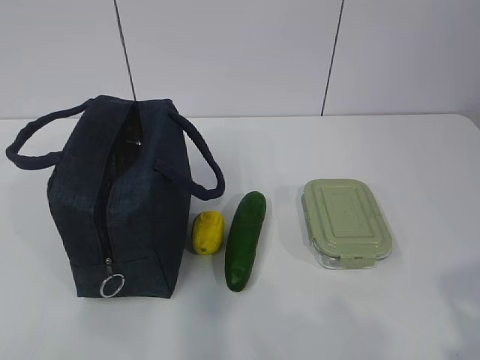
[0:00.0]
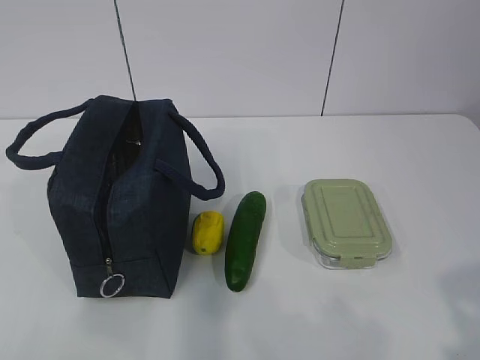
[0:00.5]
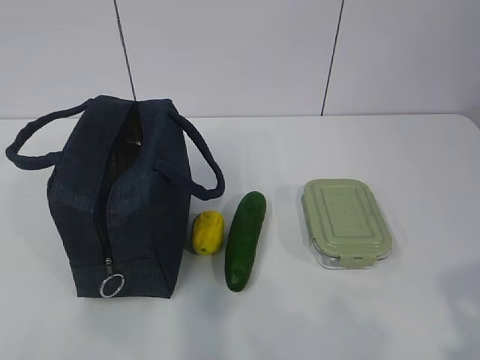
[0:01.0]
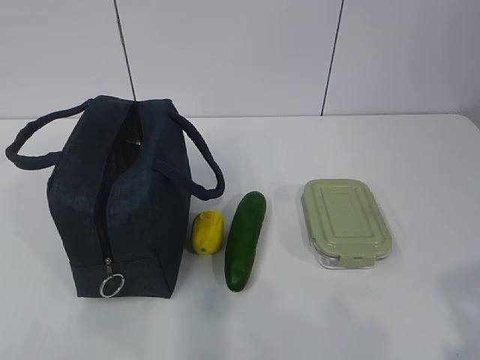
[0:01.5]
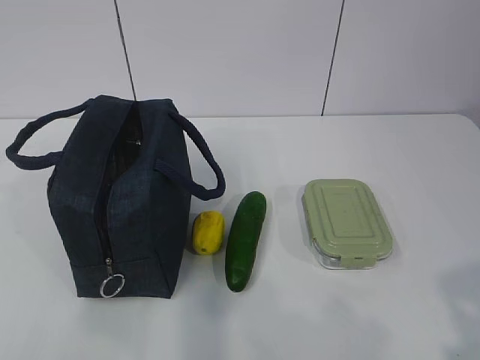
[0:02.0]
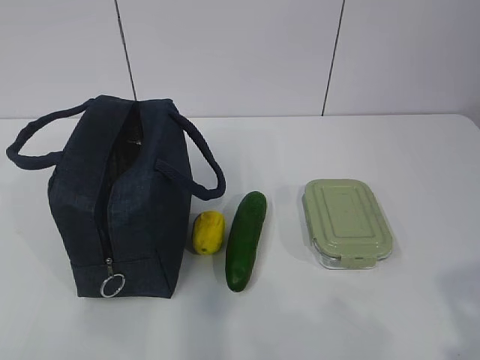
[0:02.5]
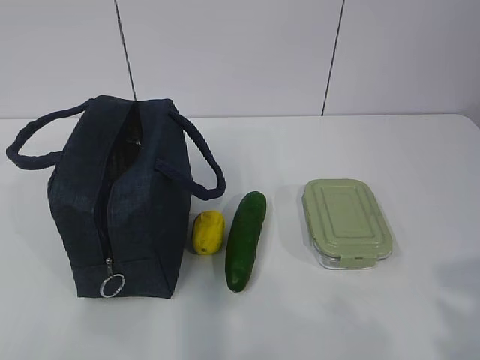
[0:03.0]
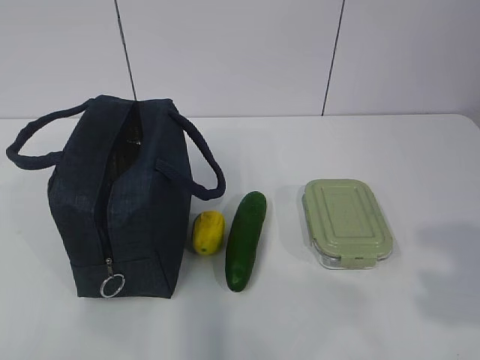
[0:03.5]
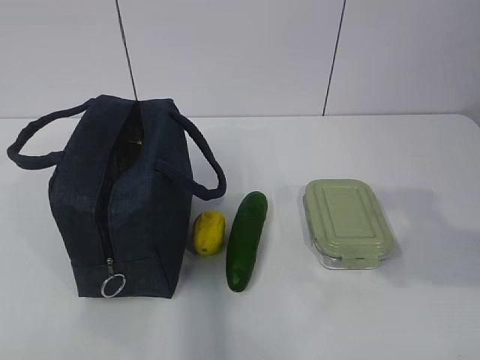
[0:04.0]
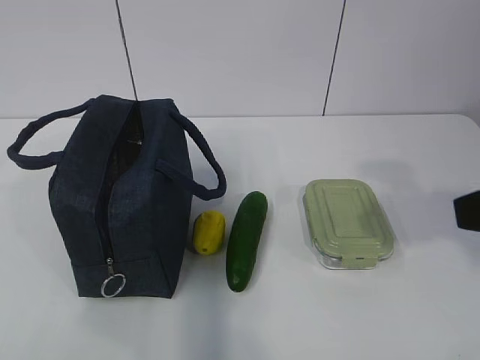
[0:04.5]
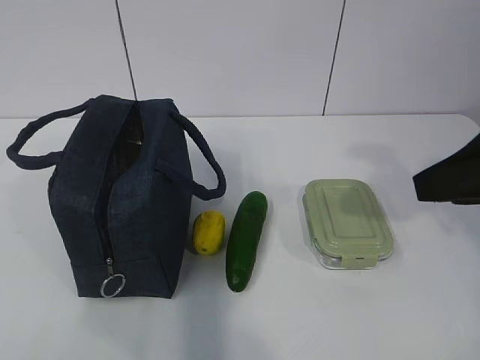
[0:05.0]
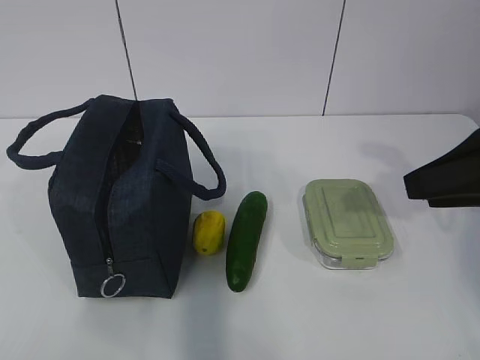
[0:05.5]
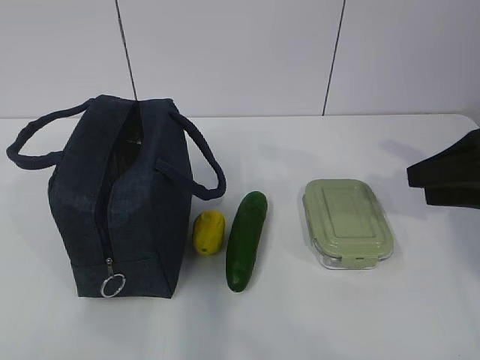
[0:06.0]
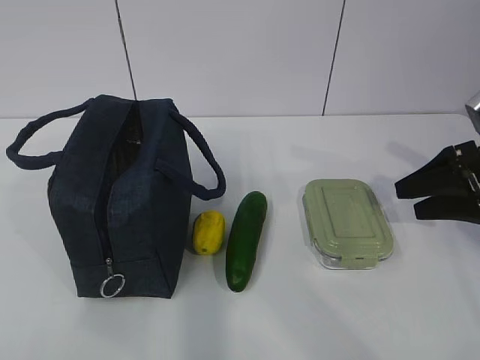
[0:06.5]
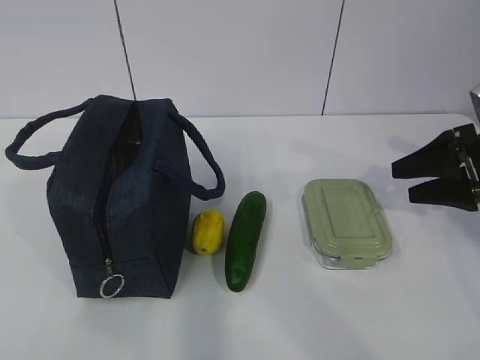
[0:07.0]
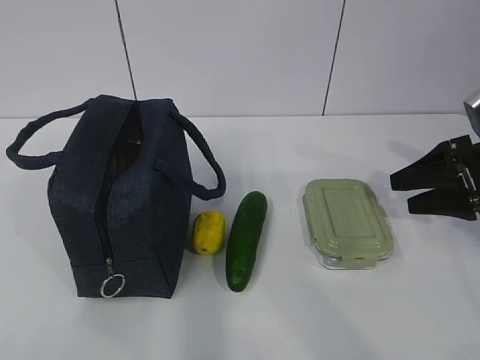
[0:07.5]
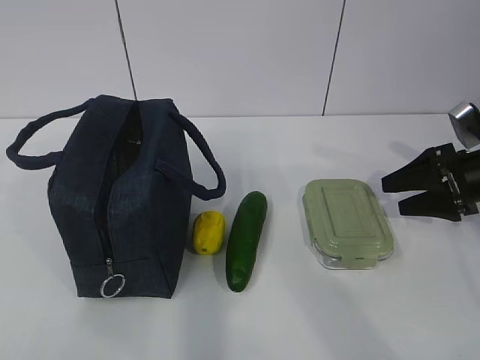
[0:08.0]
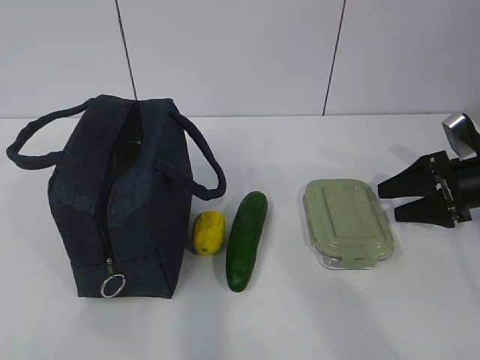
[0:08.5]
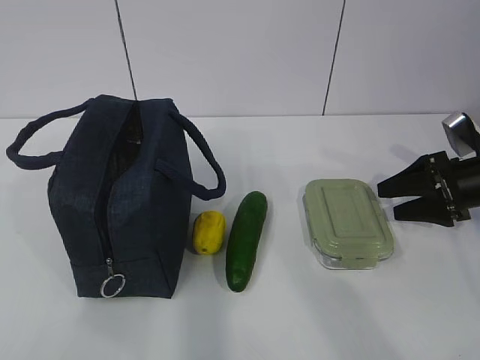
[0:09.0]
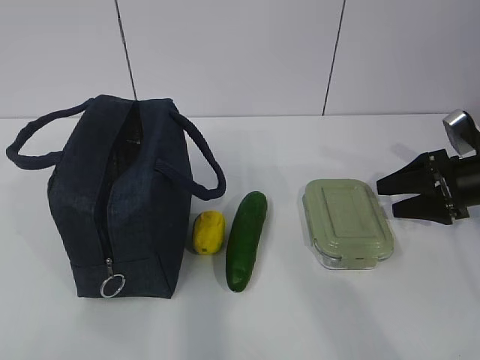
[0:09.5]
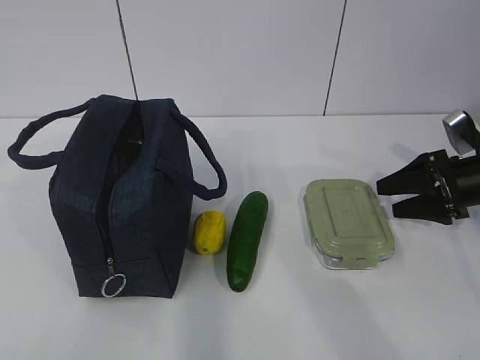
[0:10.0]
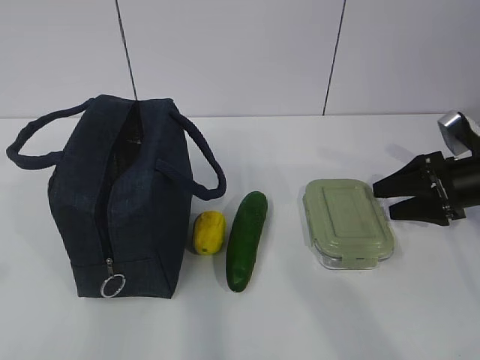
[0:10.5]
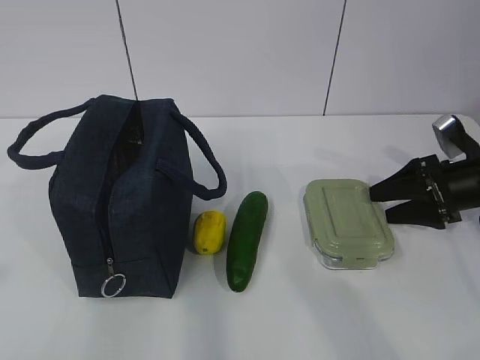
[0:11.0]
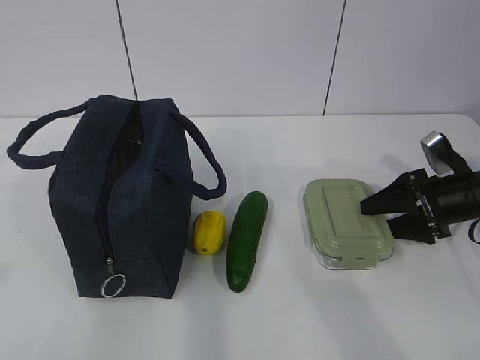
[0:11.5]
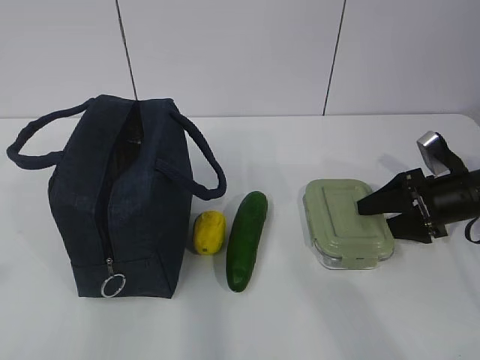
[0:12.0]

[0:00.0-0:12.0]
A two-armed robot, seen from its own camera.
0:02.0 to 0:04.0: The right gripper goes approximately 10 cm forward.
0:04.0 to 0:06.0: The right gripper shifts roughly 20 cm forward and downward.
0:06.0 to 0:08.0: The right gripper moves downward and forward, some 10 cm.
0:08.0 to 0:12.0: The grippers move only a little.

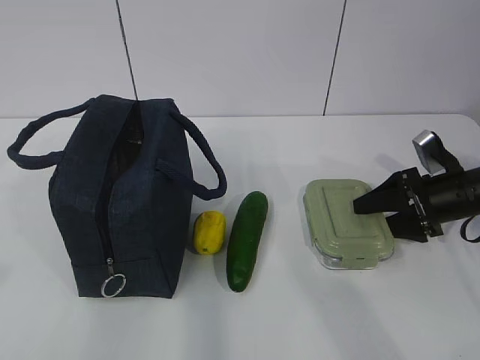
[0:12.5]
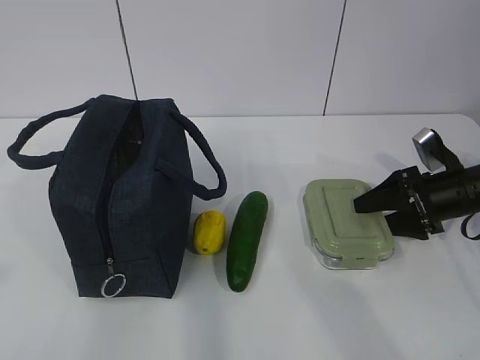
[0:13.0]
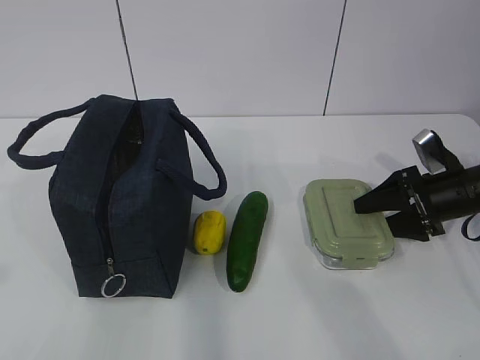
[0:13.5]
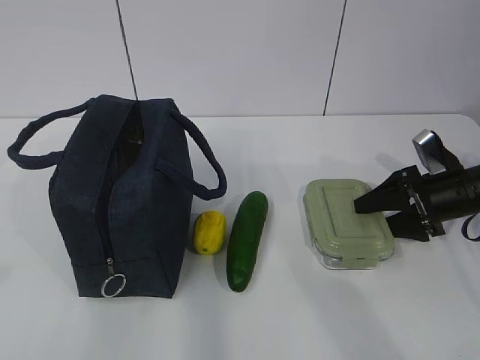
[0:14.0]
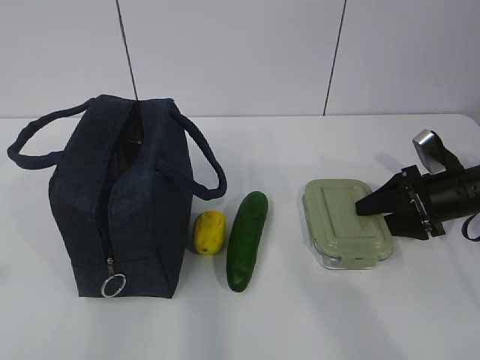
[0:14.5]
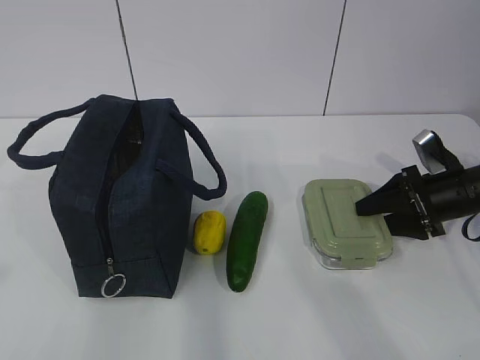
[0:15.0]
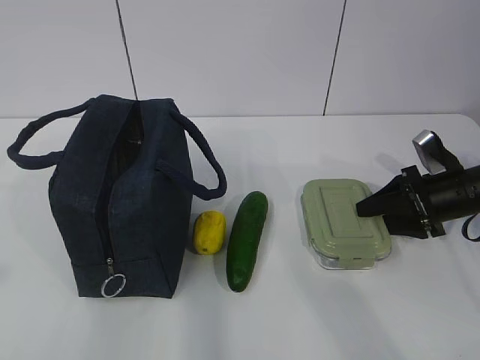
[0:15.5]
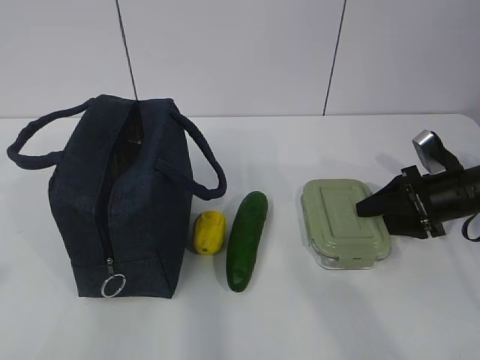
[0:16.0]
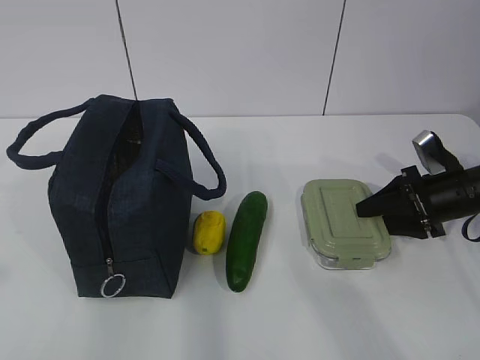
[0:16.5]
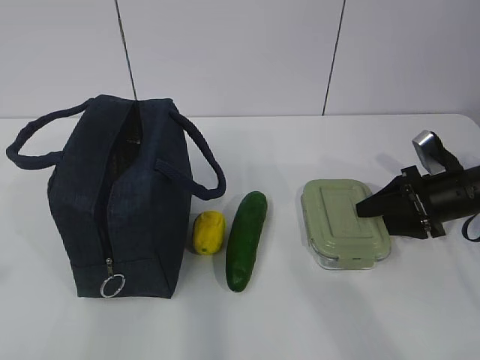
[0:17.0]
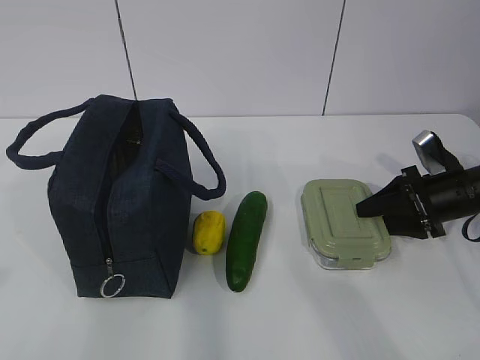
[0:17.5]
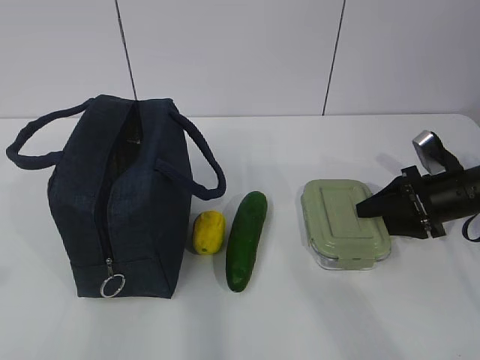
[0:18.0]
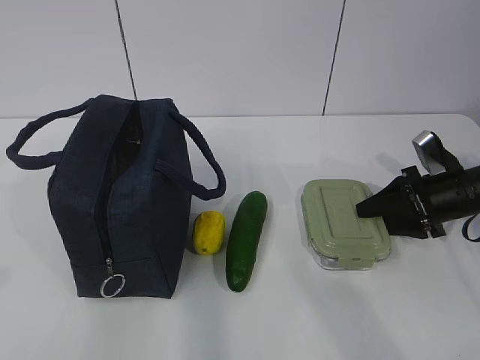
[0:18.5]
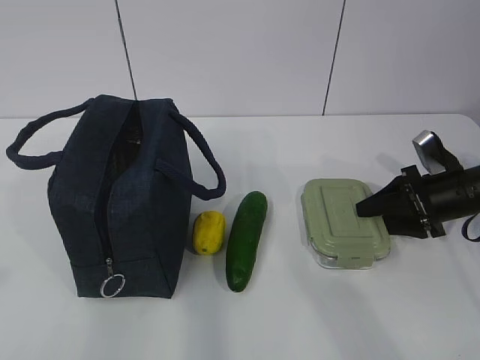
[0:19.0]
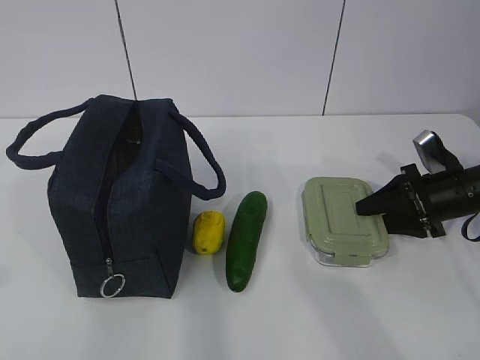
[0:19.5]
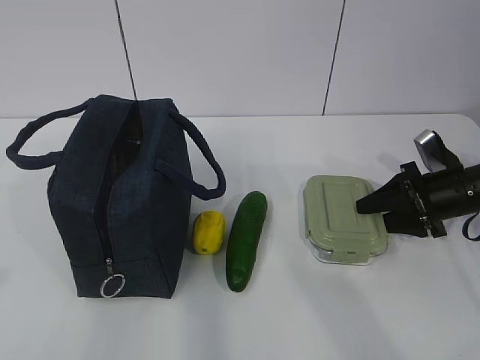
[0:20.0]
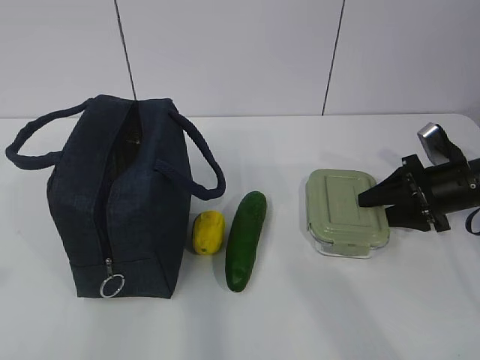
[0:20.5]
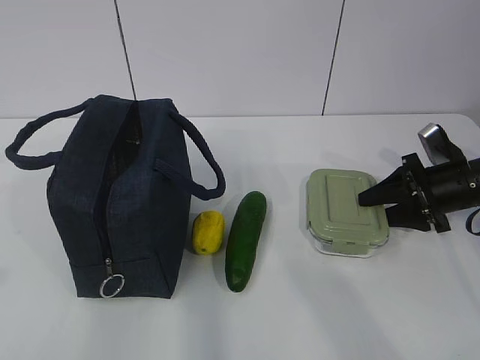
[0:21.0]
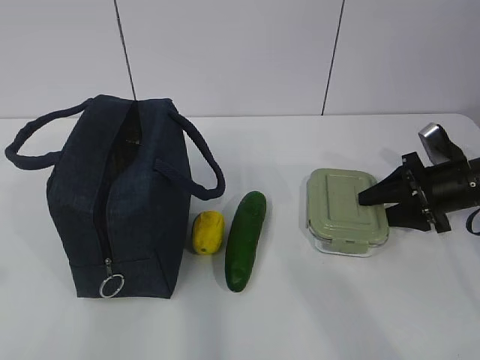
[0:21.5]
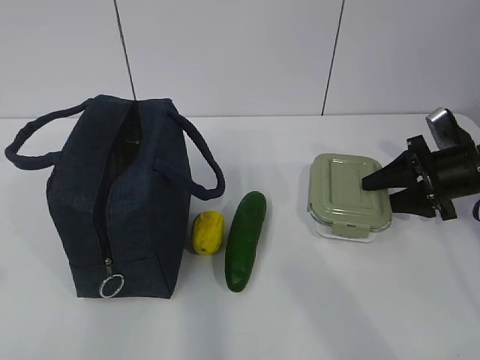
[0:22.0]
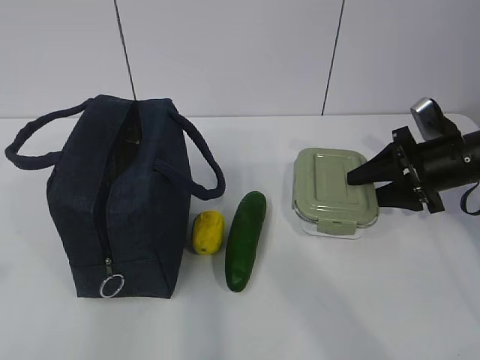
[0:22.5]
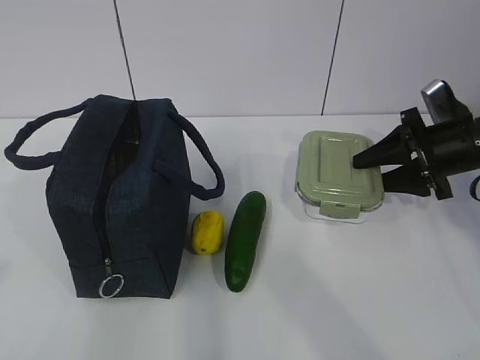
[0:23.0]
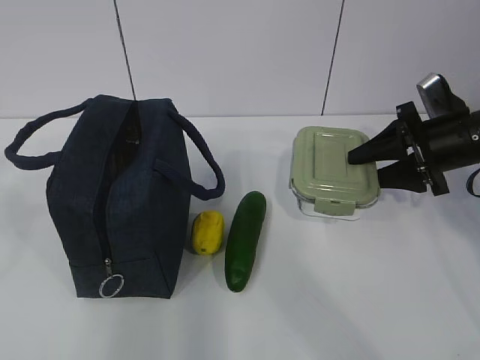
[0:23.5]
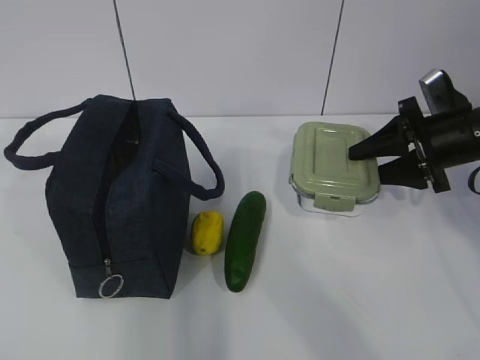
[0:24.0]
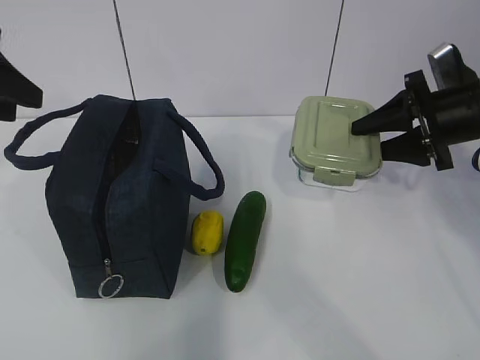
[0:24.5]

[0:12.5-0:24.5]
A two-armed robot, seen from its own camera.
Step, 0:17.0 to 0:23.5: Grab the lunch bag with your left hand.
0:12.5 to 0:18.5: Both grippers stay about where they are.
0:18.5 to 0:20.5: The two grippers keep their place.
0:20.5 to 0:22.5: The grippers move only a little.
0:22.5 to 0:24.5: The left gripper is displaced forward by some 25 cm. The right gripper heads upward, covering approximately 5 cm.

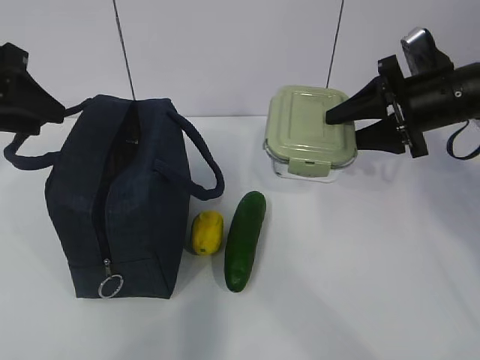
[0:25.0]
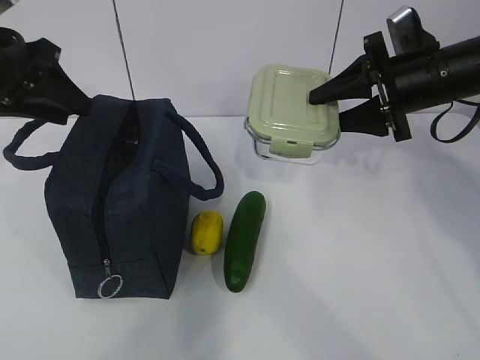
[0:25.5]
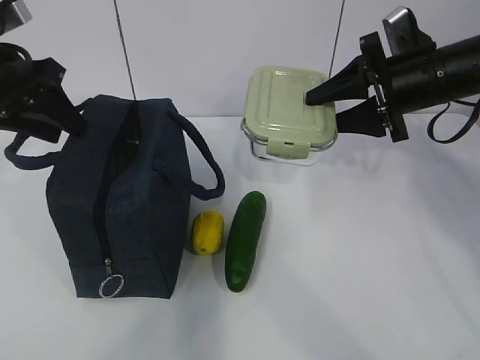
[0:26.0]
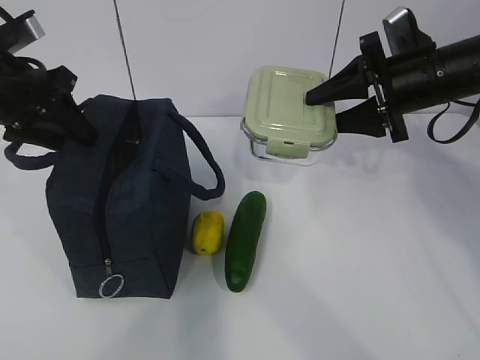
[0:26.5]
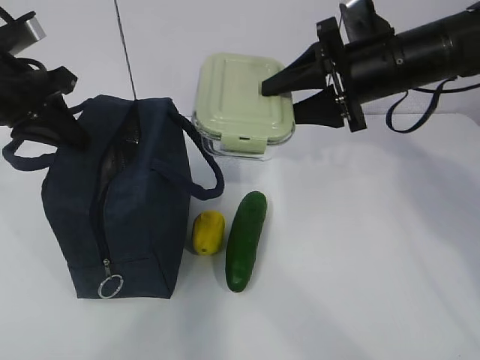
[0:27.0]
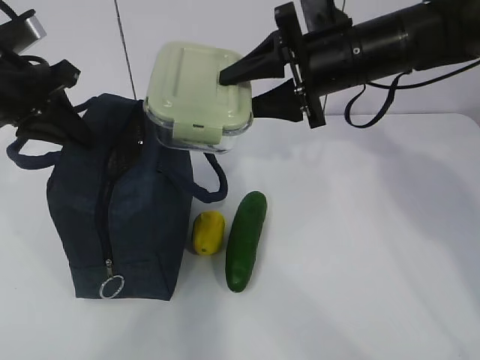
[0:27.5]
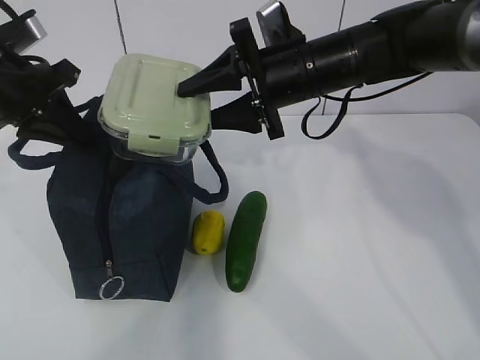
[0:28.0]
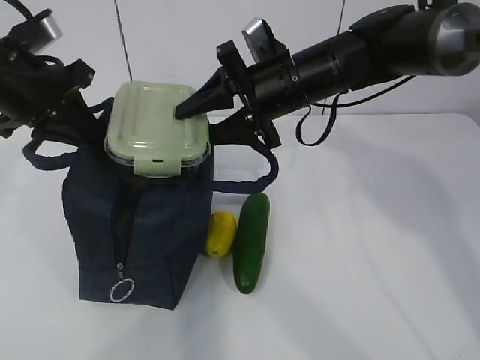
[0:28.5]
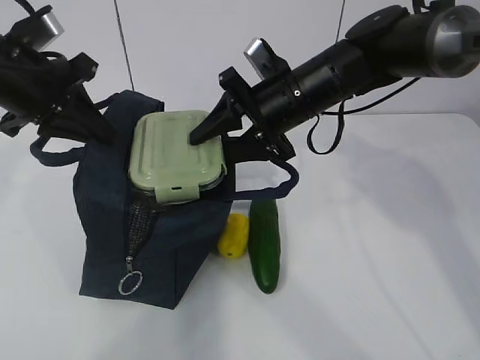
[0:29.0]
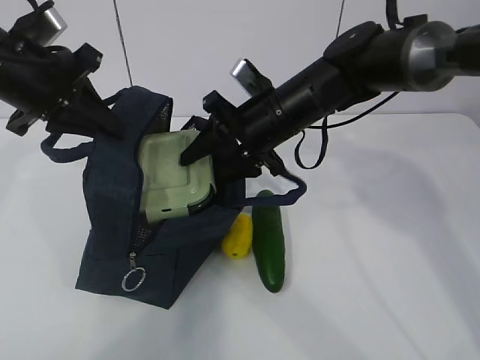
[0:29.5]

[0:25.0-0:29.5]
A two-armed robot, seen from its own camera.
0:25.0 to 0:27.0: The left gripper closes up; the right gripper shifts roughly 5 cm to the left.
0:27.0 to 0:29.5: The right gripper travels to the left and downward by roughly 10 cm.
